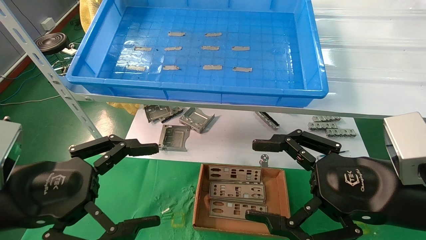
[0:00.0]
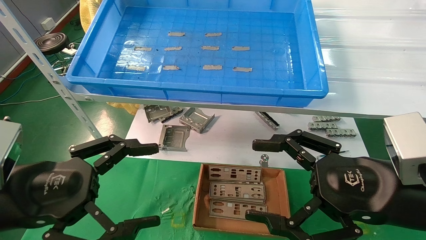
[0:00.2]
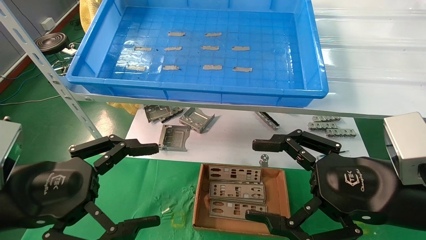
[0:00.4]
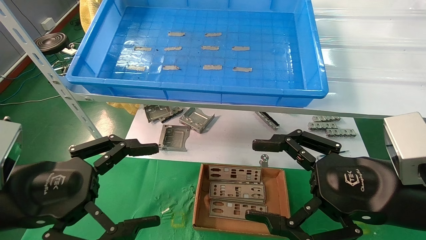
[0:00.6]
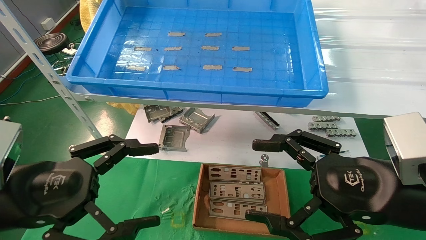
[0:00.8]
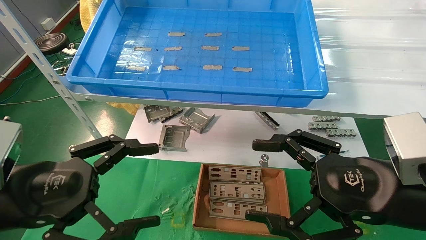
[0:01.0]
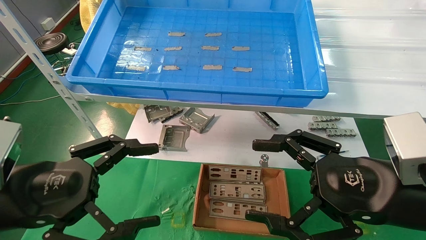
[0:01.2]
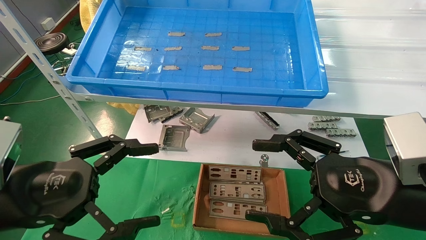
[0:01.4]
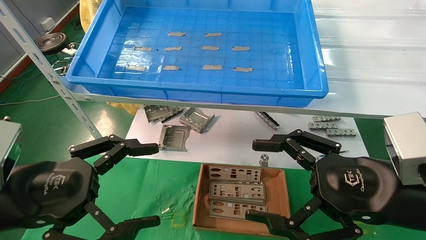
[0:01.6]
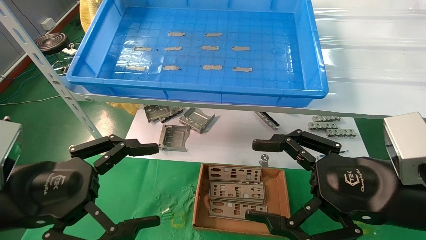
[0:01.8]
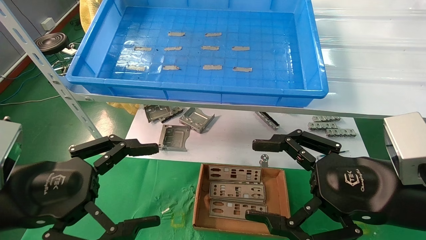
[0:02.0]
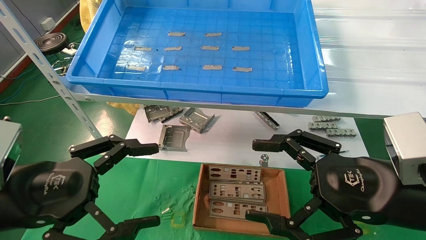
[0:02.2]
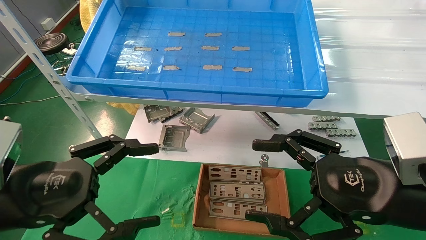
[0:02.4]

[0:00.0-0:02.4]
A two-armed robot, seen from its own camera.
Task of the whole recording: pick up the parts on the tray and put them in the cardboard box.
0:00.0 to 0:02.4: Neither gripper changes place.

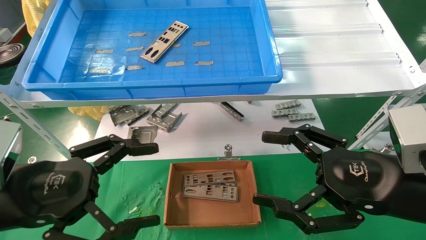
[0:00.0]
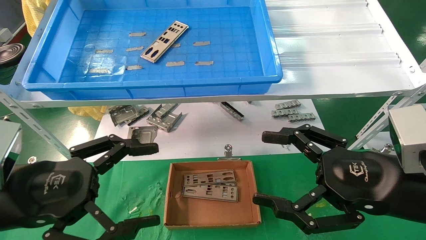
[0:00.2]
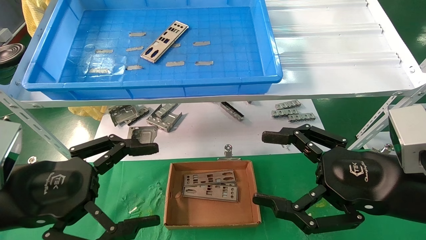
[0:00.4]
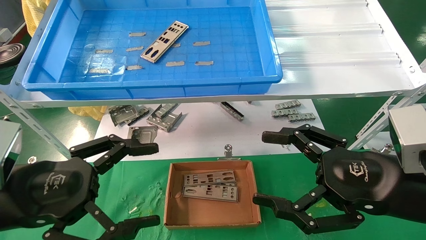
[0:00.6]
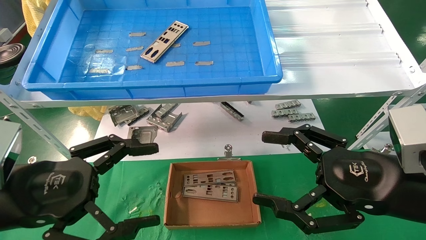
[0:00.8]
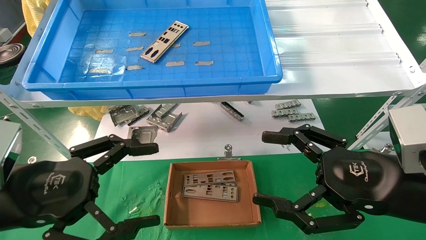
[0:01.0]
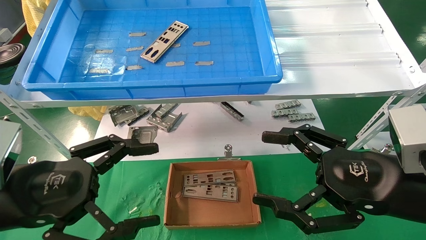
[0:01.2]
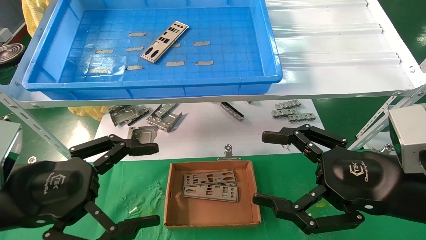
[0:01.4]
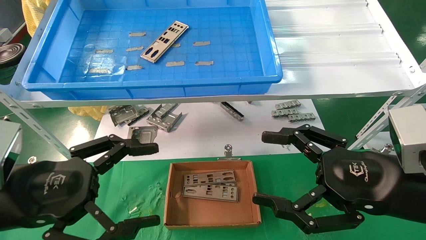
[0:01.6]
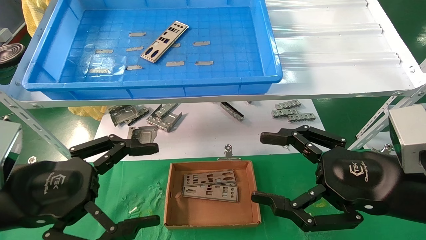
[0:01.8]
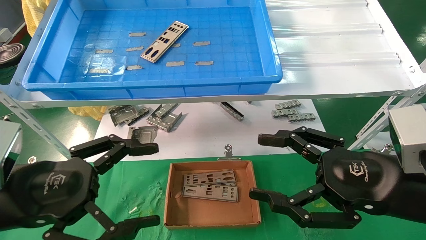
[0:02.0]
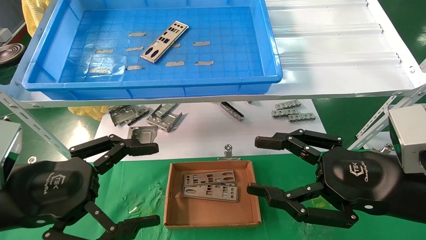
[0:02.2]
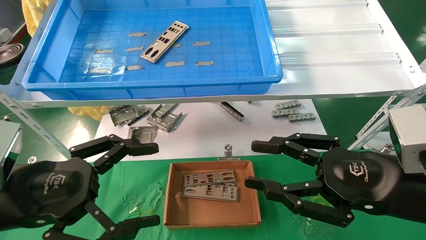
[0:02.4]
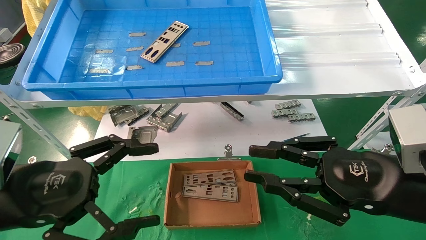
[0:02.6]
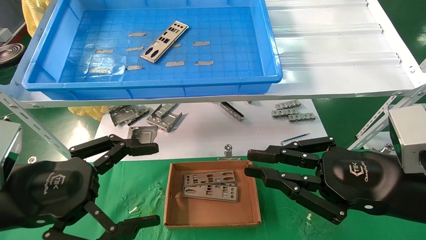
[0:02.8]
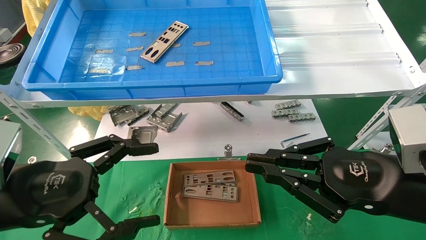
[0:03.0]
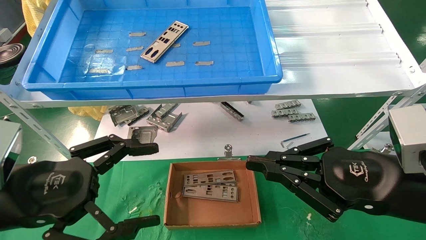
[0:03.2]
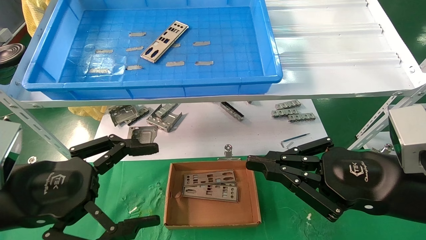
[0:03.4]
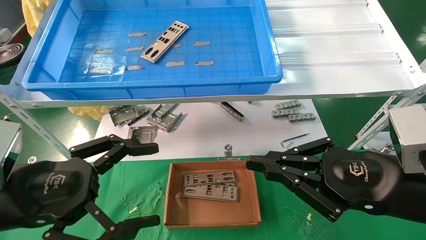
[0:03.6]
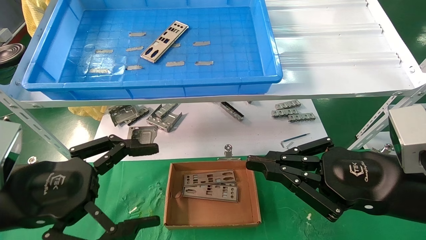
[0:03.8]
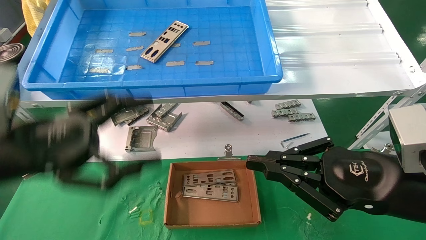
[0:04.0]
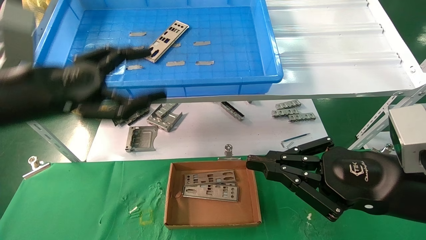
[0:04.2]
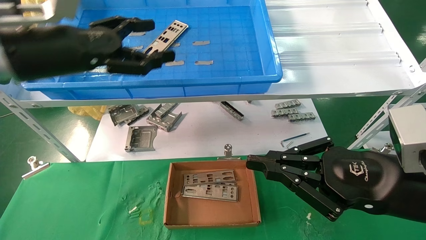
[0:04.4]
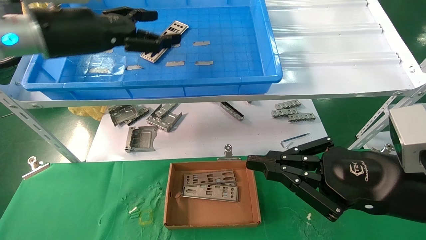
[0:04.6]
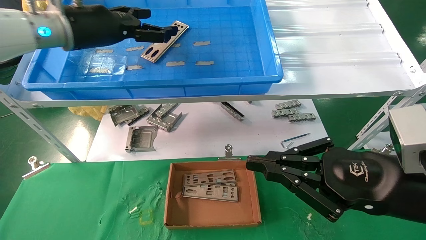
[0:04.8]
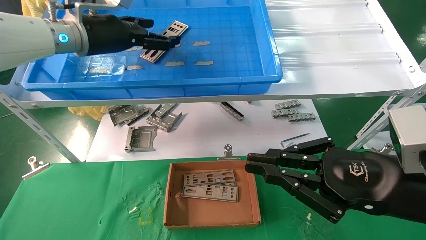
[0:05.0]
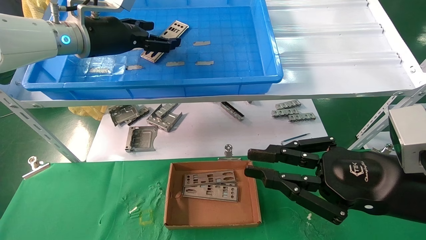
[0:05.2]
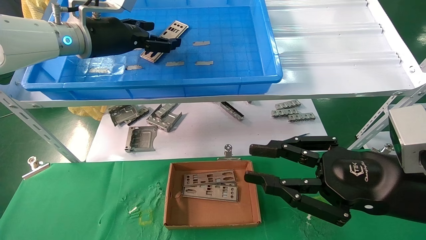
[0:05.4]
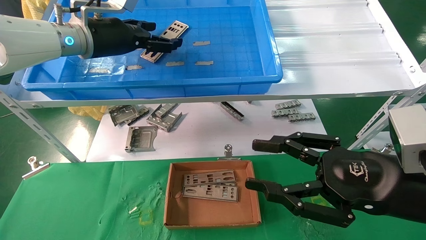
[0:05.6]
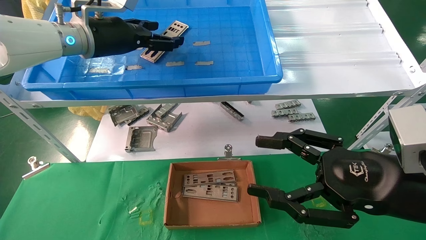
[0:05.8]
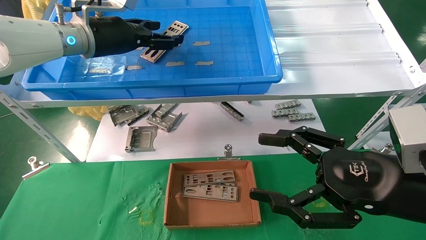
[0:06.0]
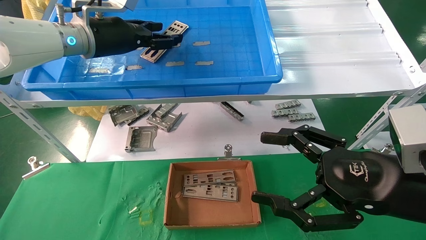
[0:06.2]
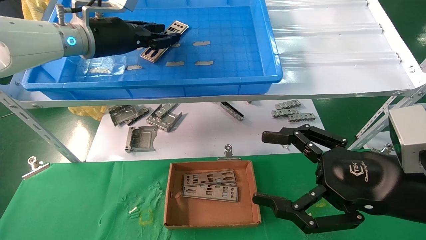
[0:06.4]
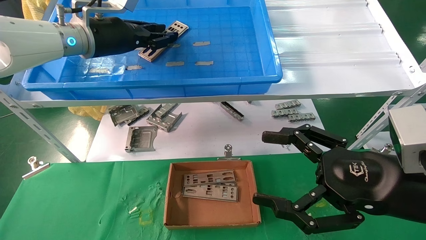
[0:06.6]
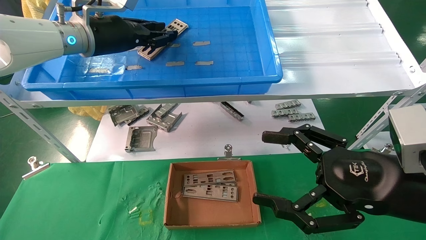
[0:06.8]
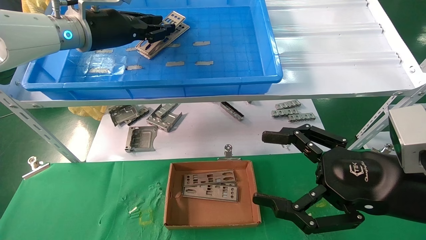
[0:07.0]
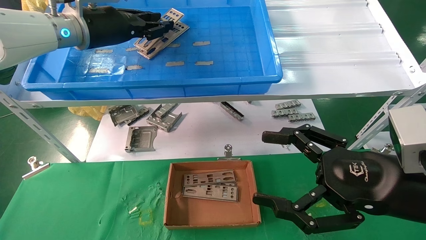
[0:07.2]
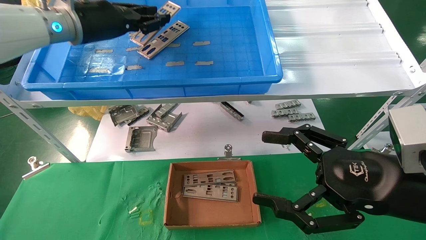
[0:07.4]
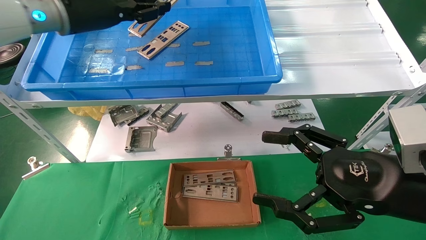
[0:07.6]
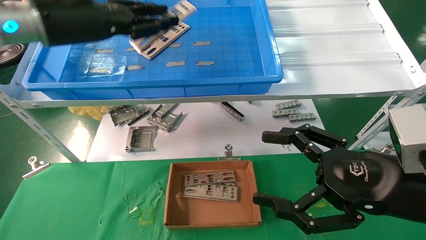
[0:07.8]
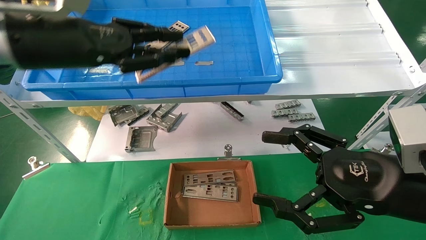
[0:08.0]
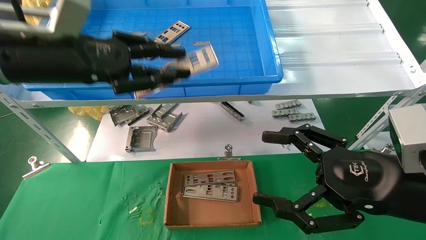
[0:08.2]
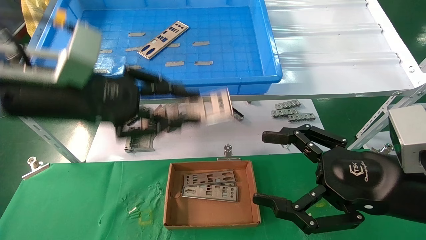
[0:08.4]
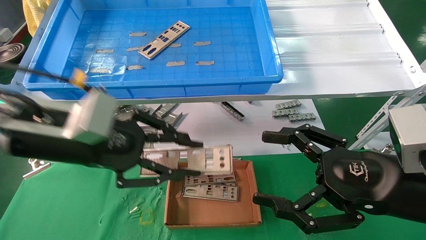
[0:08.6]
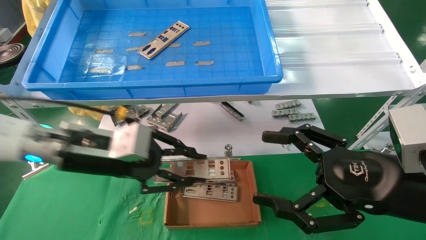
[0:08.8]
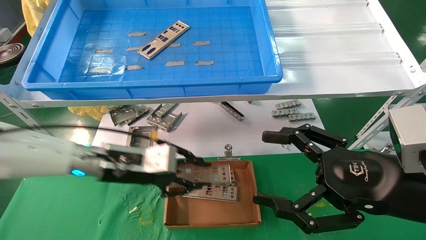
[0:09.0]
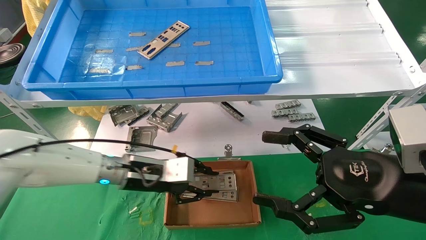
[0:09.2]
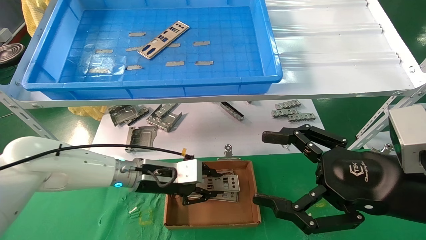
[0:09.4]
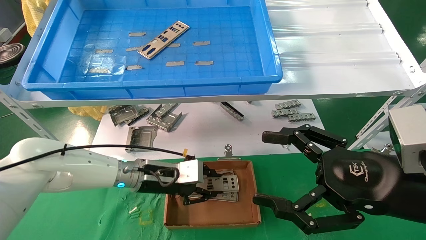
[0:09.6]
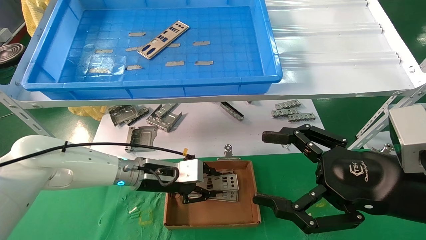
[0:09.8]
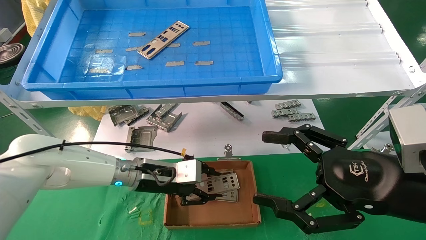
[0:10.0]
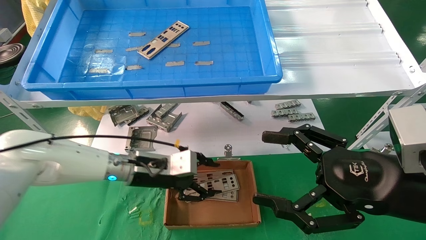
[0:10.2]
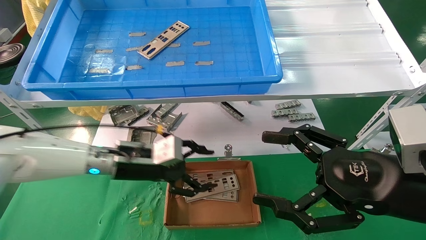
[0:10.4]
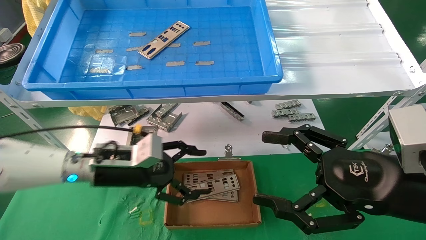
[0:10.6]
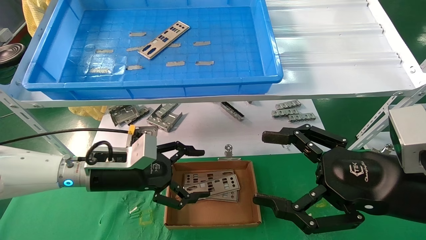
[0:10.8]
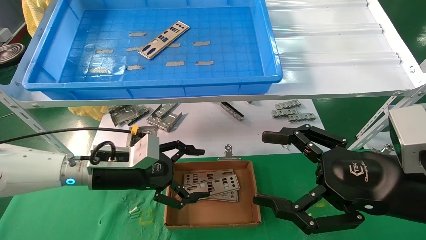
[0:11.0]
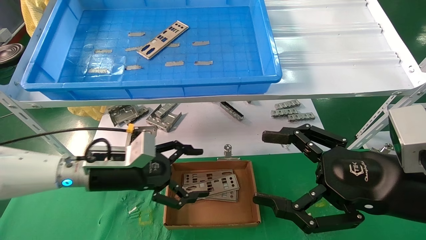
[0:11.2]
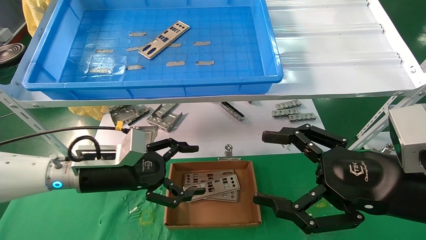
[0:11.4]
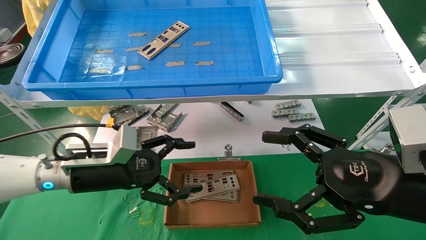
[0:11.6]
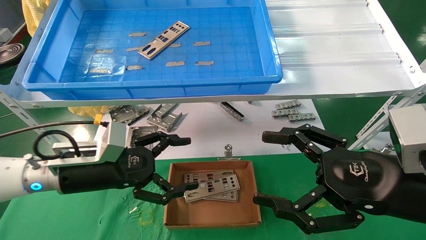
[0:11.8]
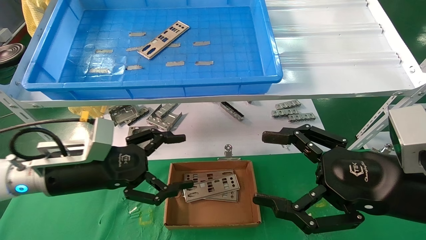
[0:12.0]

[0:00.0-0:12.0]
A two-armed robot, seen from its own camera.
Task of the whole recording: pick up the parts on the tray and put them in the cardboard box.
Step, 0:04.2 to 0:06.8: Pick up the IO bracket from the container box.
Step, 0:07.0 to 0:10.0: Place the IO bracket into the ingredient slot.
0:00.0 to 0:01.6: Both grippers stay about where they are.
0:01.6 to 0:03.0: The right gripper closes.
0:03.0 to 0:04.4: The left gripper goes roughly 20 cm upward and forward.
0:04.4 to 0:06.0: The left gripper goes some 10 cm forward. The right gripper opens its fingers.
0:06.0 to 0:07.6: The left gripper moves roughly 5 cm, and closes up.
0:07.6 to 0:09.0: The left gripper is displaced downward by roughly 25 cm.
0:09.0 to 0:10.4: The left gripper opens its fingers.
0:10.4 to 0:12.0: The left gripper goes about 10 cm backward and to the left, and opens.

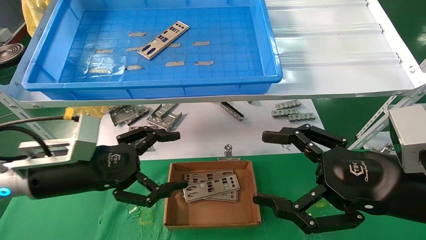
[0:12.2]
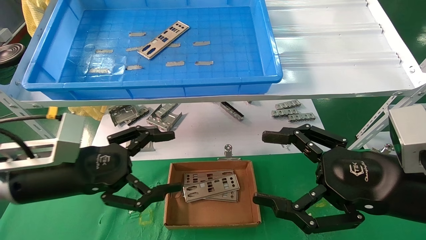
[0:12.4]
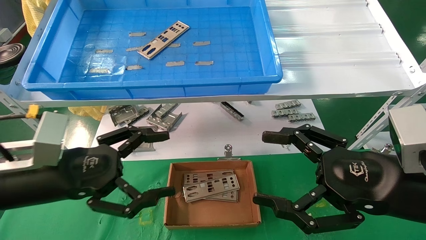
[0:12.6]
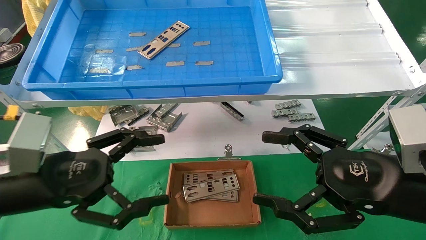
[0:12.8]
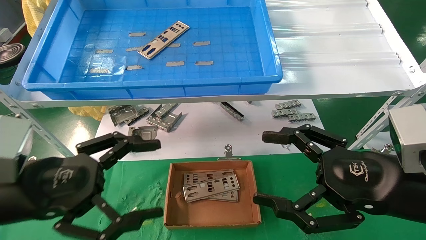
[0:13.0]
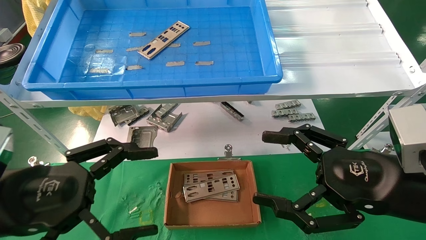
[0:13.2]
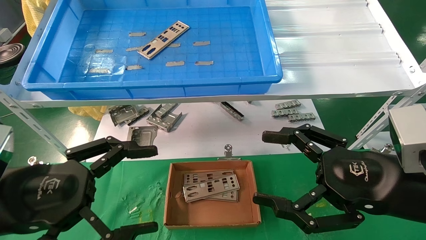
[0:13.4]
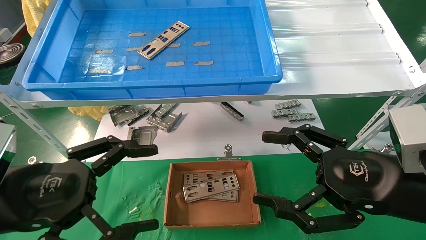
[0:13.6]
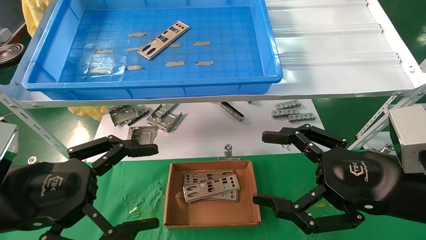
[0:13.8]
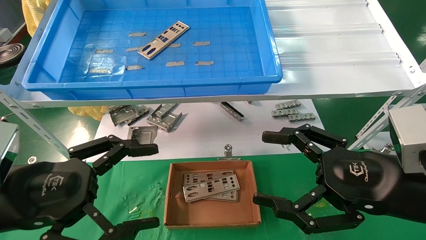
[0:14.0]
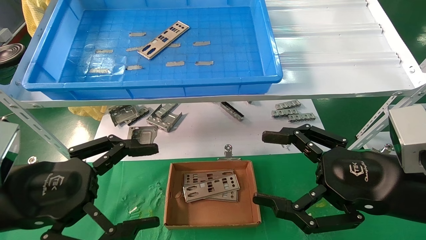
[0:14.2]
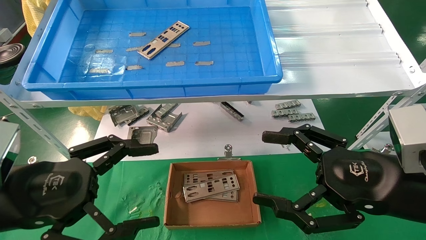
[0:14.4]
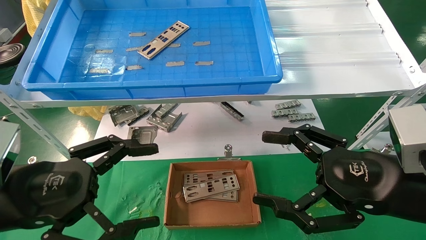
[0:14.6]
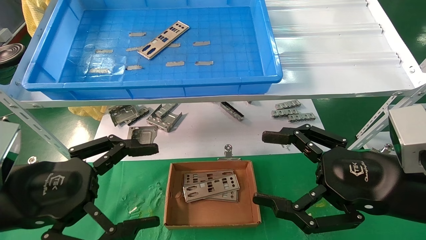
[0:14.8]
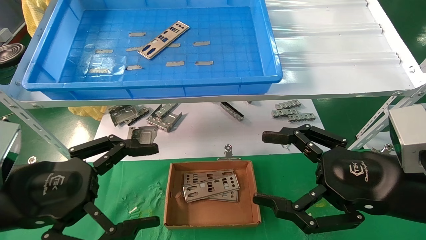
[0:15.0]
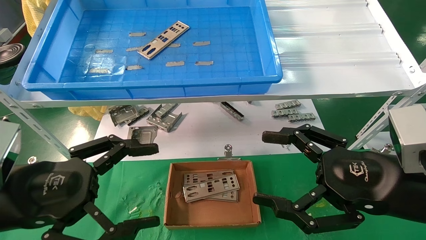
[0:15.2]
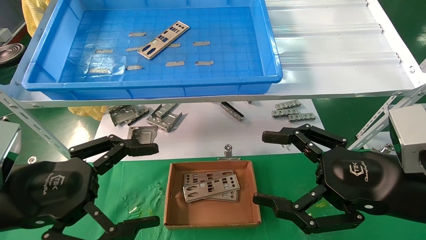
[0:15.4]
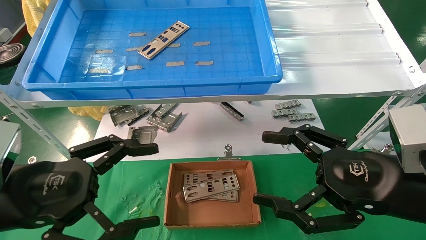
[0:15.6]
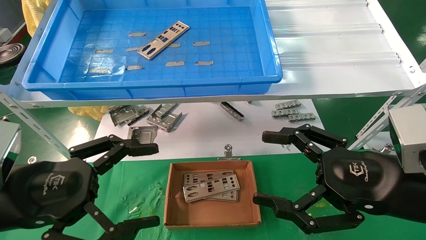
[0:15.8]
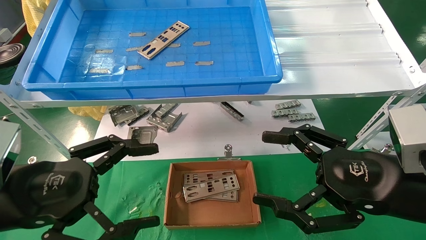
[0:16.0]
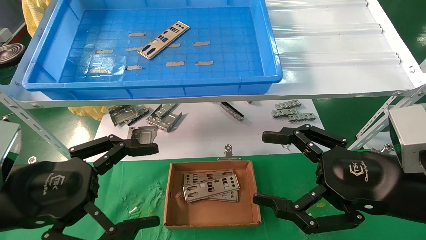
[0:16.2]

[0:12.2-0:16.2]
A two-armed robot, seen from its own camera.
Task of the whole recording: pick up the parts on the tray and put them in the cardboard box.
0:12.2 to 0:13.6: The left gripper travels backward by some 10 cm.
0:13.6 to 0:16.2: The two grippers keep their place.
